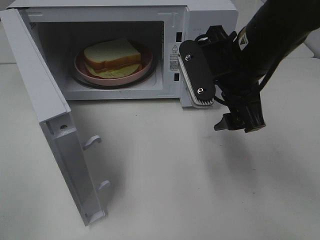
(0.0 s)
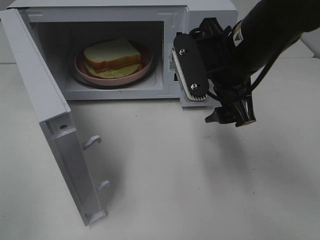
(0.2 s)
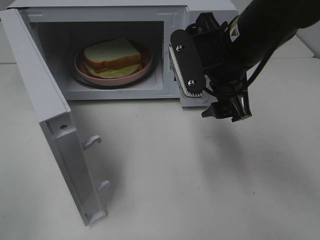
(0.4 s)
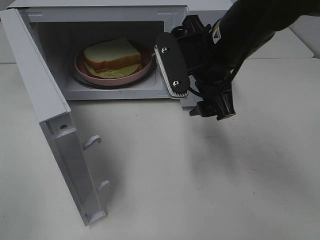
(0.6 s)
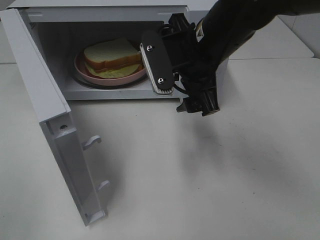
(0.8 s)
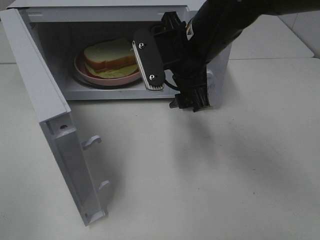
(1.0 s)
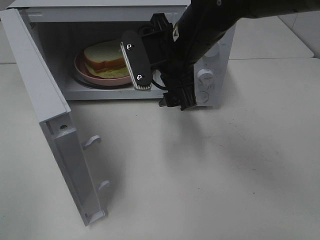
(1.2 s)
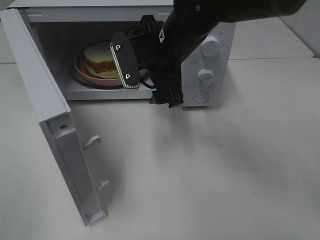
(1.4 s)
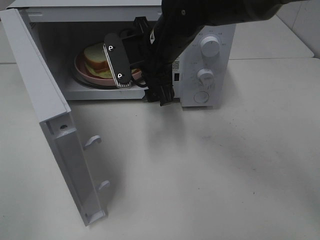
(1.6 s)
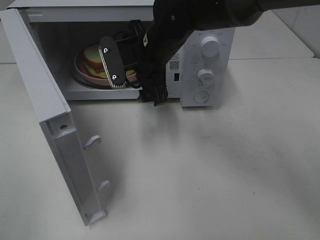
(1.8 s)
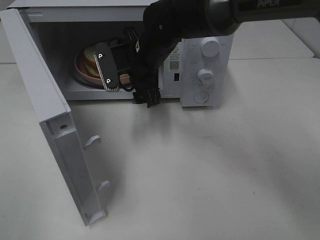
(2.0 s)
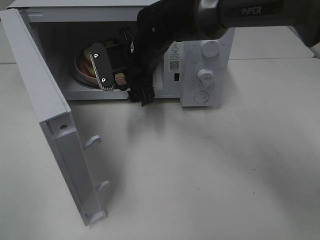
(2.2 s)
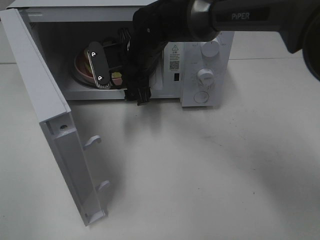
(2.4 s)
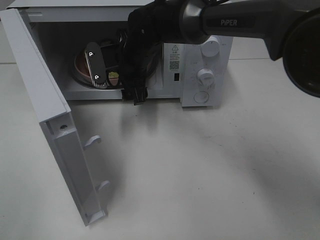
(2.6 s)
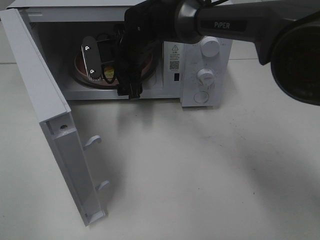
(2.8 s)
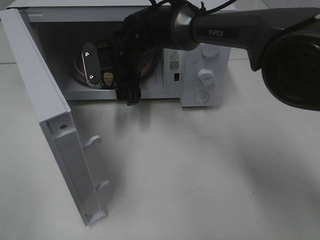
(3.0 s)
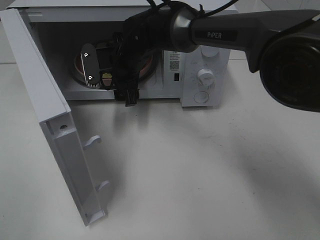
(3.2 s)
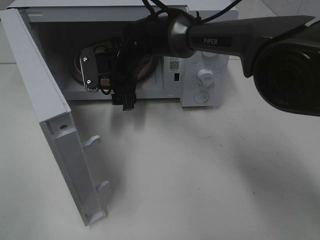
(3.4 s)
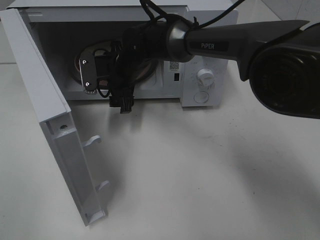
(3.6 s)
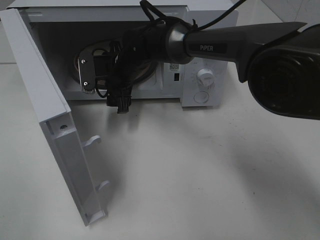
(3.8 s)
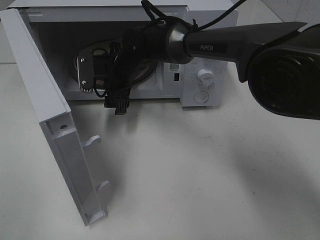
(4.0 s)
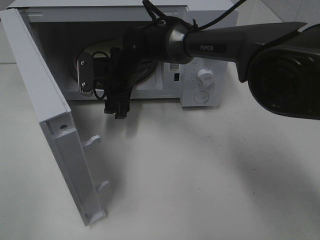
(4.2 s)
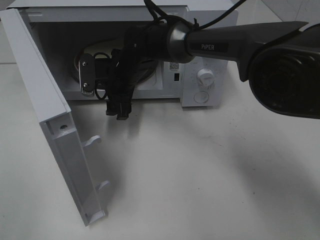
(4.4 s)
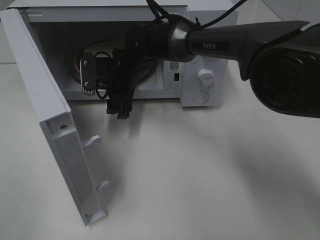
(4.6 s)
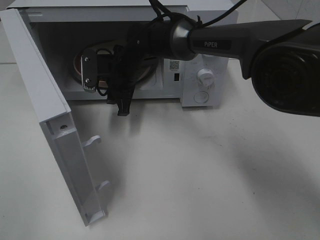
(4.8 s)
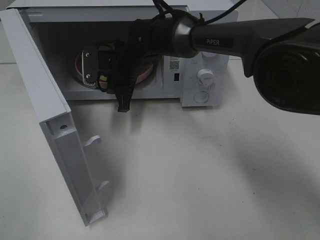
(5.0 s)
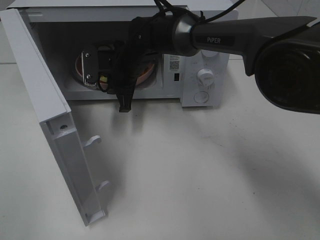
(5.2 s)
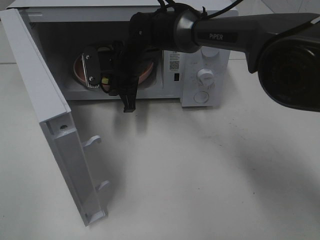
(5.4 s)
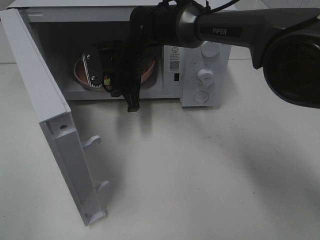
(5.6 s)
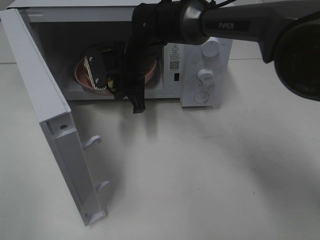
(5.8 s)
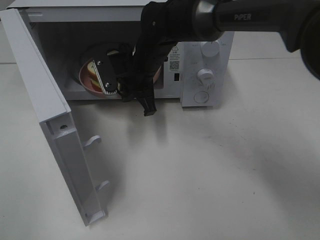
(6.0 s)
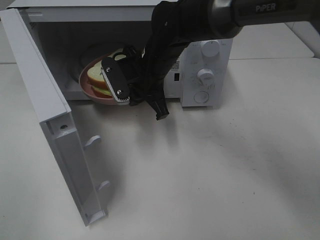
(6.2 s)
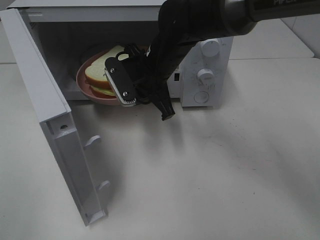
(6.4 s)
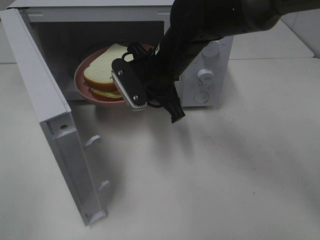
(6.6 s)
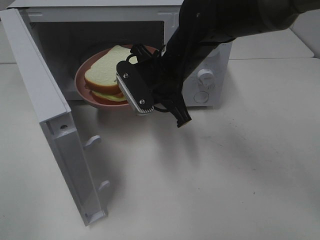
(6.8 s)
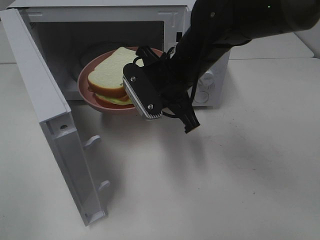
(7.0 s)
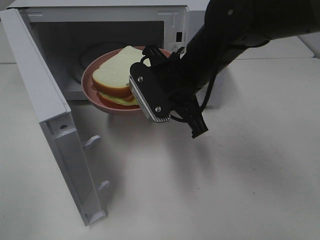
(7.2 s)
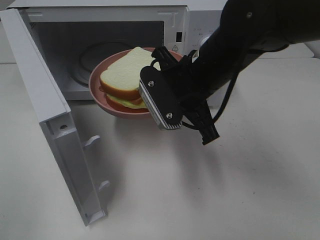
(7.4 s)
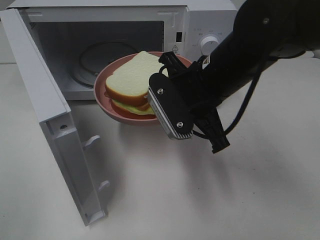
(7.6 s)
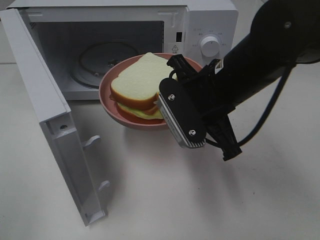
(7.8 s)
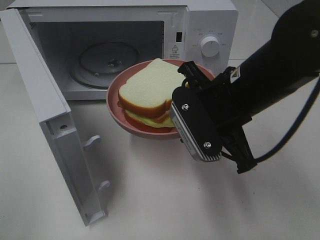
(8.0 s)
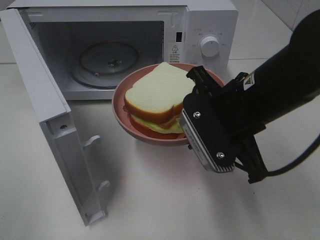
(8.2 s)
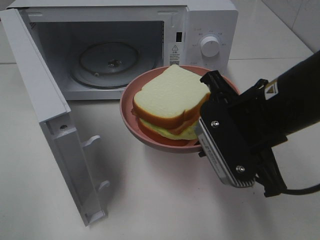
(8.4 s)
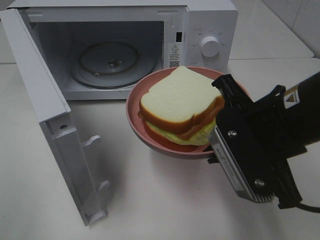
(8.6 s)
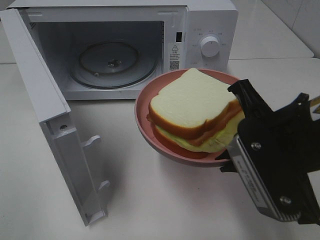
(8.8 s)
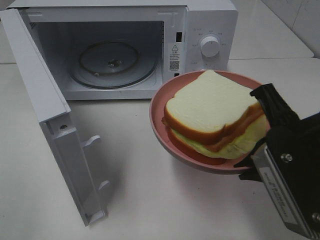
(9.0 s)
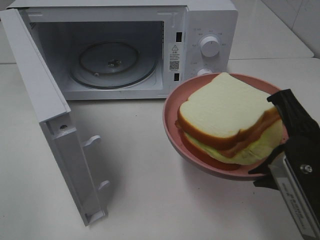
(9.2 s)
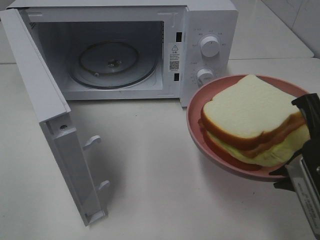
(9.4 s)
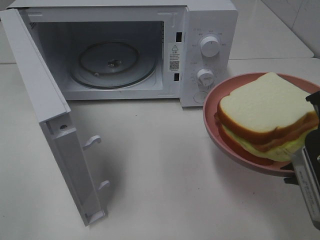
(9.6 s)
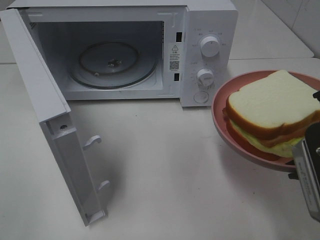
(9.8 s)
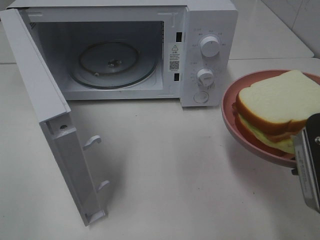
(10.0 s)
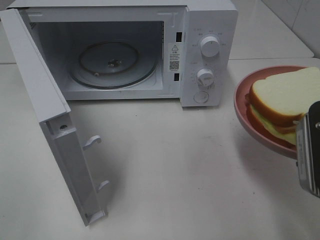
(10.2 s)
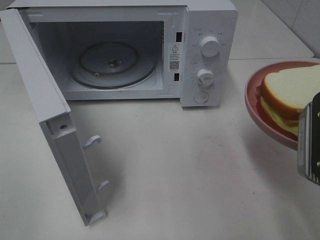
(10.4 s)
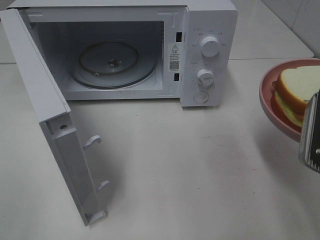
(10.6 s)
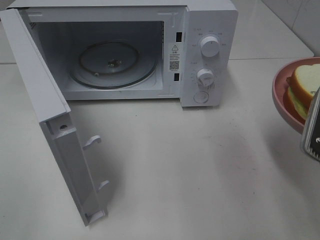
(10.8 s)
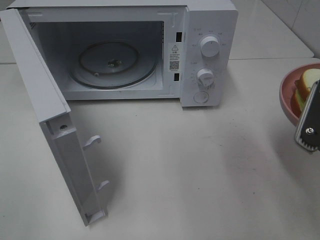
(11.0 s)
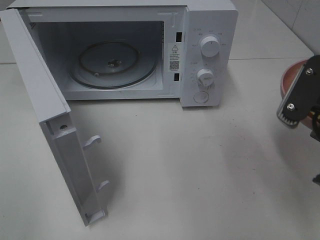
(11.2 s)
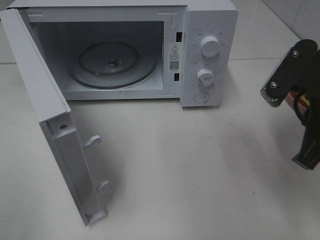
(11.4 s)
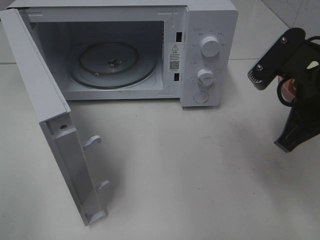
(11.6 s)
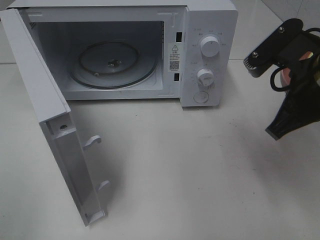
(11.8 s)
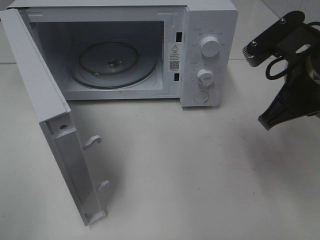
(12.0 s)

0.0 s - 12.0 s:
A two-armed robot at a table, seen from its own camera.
Task of the whole recording: Heat Sandwich.
Step, 0.0 s - 5.0 s: Right hand: grab the plate with the sandwich.
0.0 s - 1.6 s: The right gripper heads to the left and forward, covering about 15 cm.
1.6 s - 3.0 s: The right gripper travels forward, downward and to the left by approximately 10 cm.
3.0 s - 4.4 s: The grippers stay close to where they were, moving slightly.
4.4 s - 6.0 s: The right gripper ends up some 5 cm from where it was, and closes.
6.0 s - 7.6 s: The right gripper goes approximately 15 cm backward and to the right.
7.6 s - 9.0 s: The right gripper heads backward and to the right, covering roughly 15 cm.
10.4 s - 12.0 s: The right gripper is displaced forward by about 10 cm.

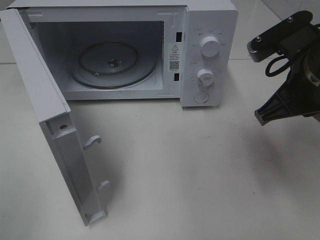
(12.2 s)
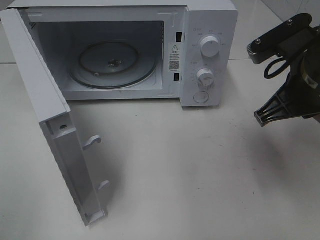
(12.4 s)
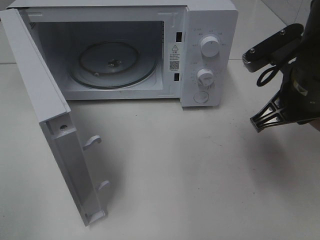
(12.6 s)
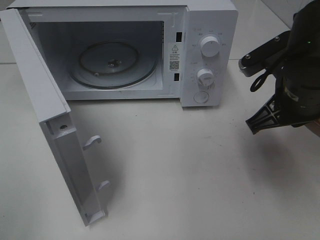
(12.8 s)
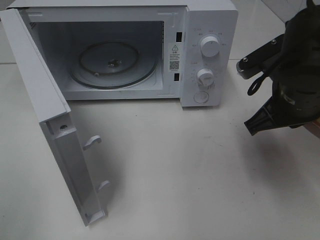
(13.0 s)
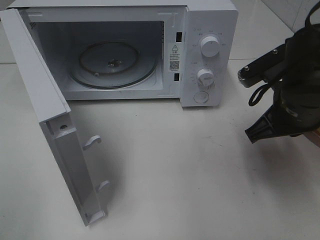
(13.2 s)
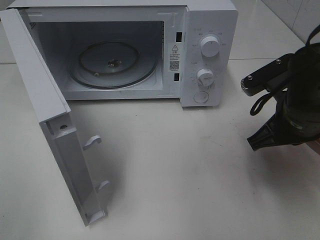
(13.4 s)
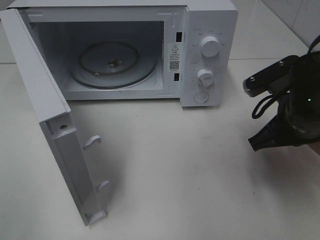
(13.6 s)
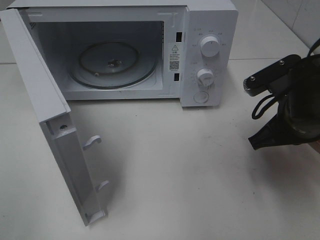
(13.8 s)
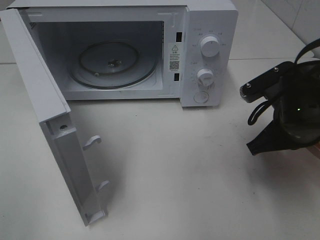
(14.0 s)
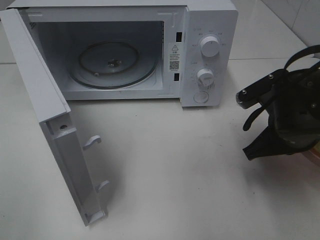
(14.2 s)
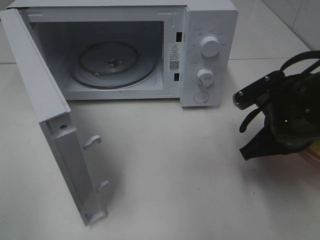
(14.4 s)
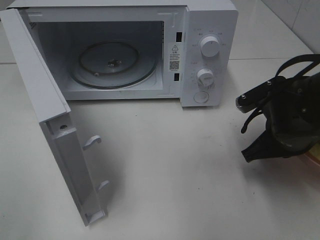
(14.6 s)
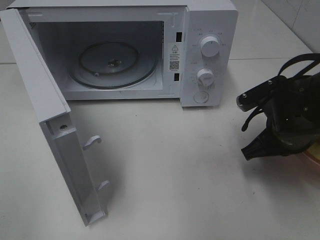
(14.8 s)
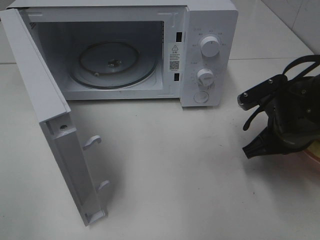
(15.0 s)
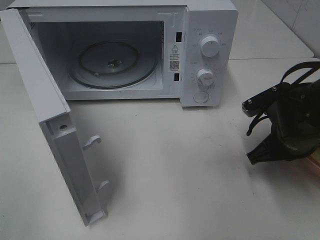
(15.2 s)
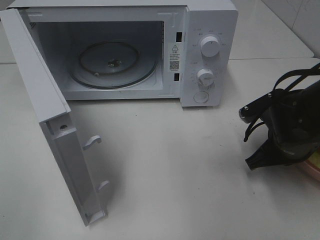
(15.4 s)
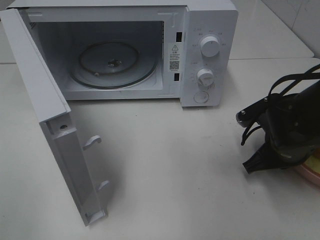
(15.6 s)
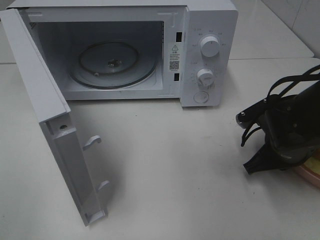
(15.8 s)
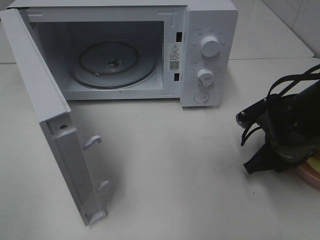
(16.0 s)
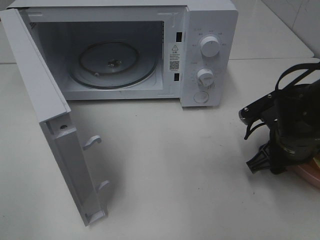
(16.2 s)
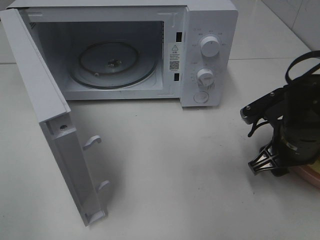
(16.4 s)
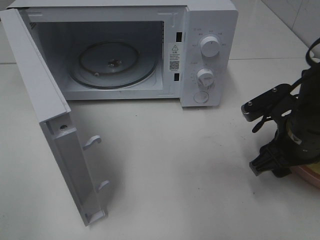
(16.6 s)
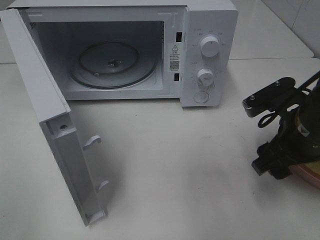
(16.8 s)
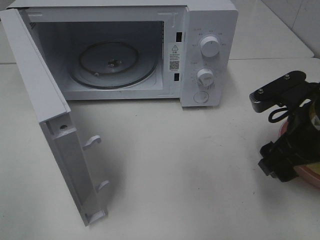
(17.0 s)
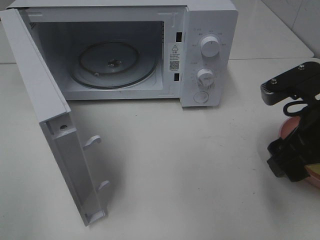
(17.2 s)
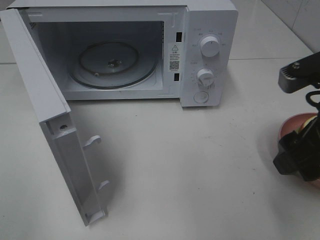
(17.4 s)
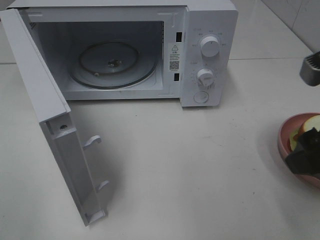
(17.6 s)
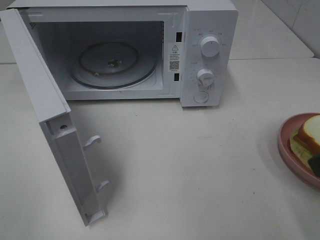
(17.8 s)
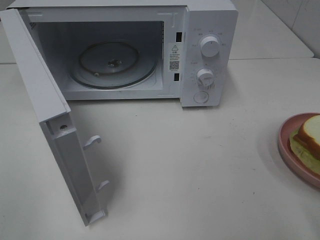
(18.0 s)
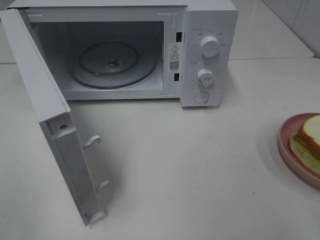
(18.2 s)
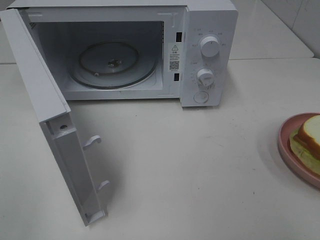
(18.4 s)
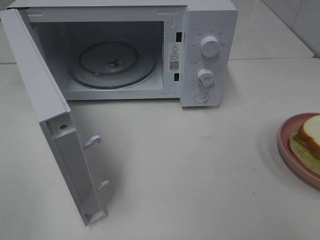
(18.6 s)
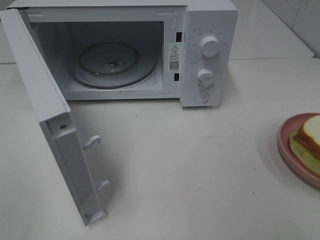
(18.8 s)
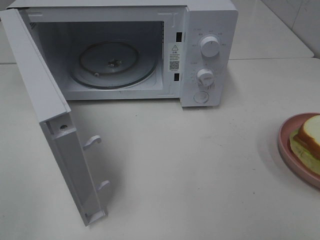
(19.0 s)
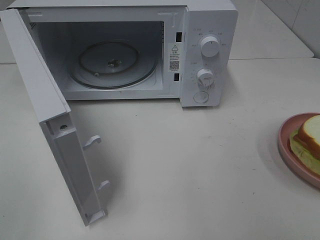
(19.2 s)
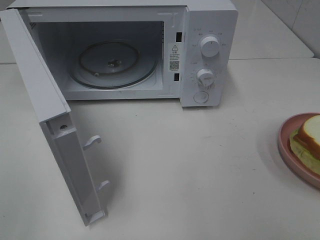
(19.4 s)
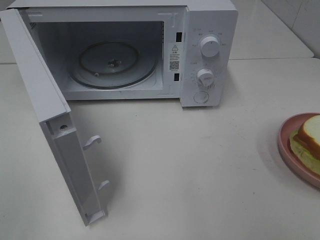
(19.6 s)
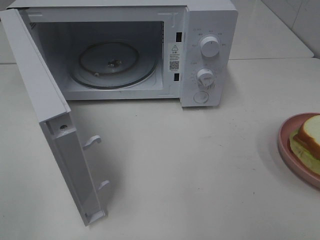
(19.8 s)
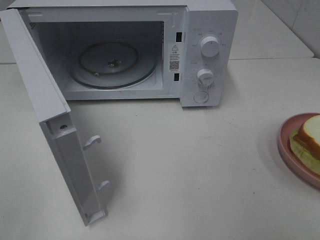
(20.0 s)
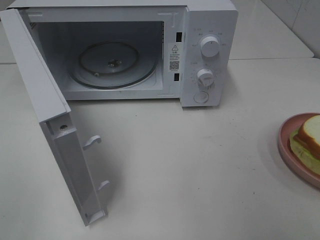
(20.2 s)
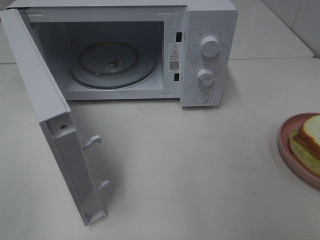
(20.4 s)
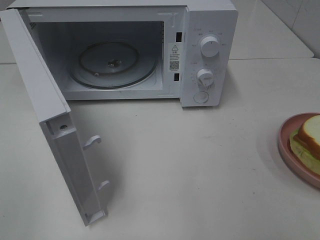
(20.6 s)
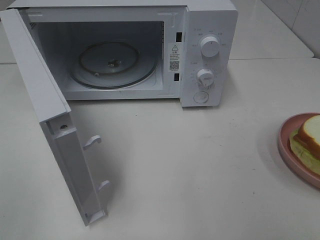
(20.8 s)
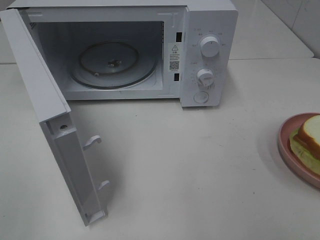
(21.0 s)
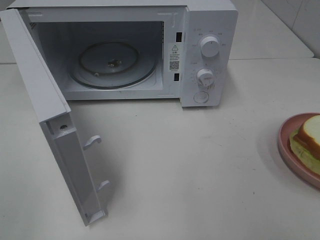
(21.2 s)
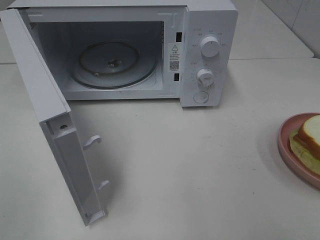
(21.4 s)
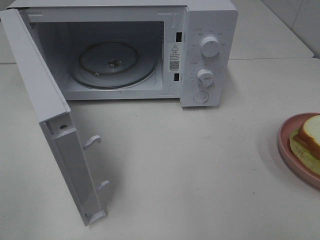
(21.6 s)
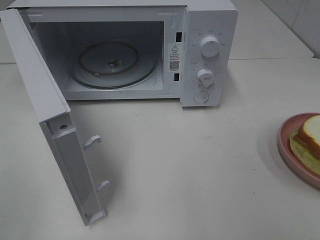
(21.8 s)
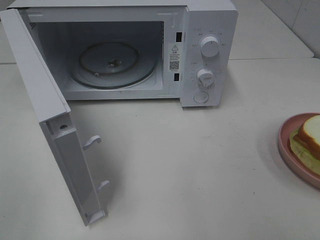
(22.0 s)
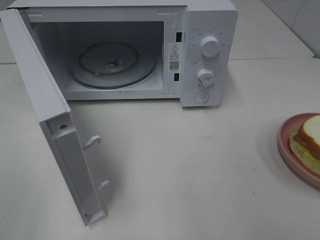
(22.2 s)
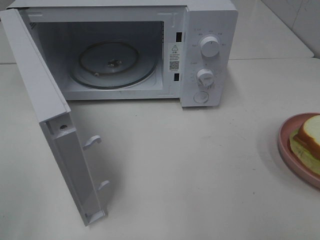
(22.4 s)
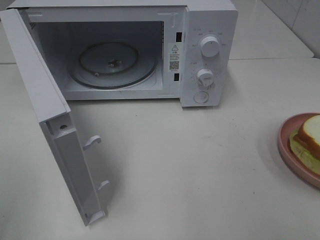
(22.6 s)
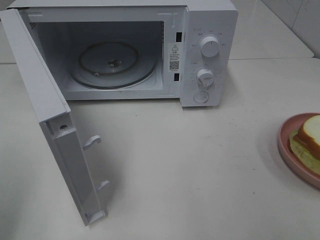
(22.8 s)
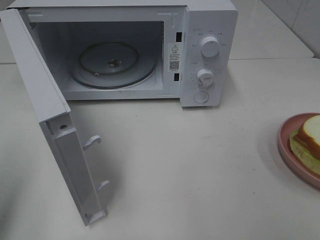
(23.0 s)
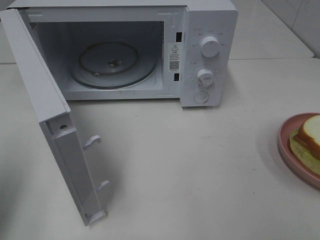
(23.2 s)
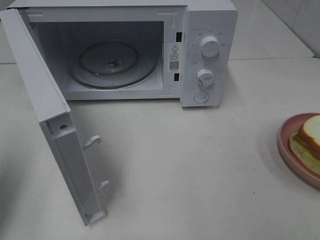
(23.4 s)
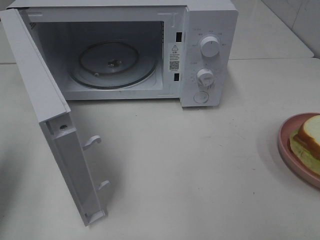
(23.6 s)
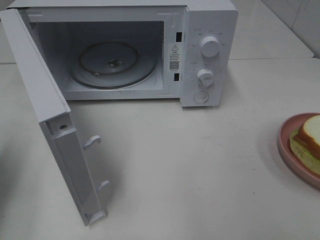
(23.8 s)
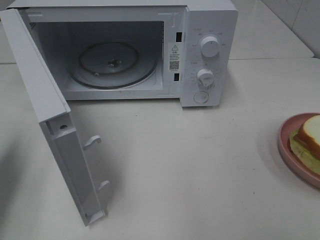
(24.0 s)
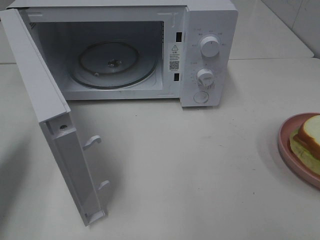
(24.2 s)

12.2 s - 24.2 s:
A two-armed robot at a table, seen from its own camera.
Task of the whole recording: Heat Sandwich.
Step, 12.2 s - 17.6 s: Right hand: place the plate on the table.
12.2 s - 13.8 s: The right gripper shifts roughly 5 cm downward.
13.8 s - 15.2 s: The right gripper heads downward, covering some 5 cm.
15.2 s - 16.6 s: The right gripper opens.
16.6 s - 18.2 s: The right gripper goes some 20 cm upward and backward.
19.8 s - 21.2 s: Both grippers stay put.
22.6 s - 24.2 s: The left gripper travels forward and downward by approximately 20 cm, and closes up.
